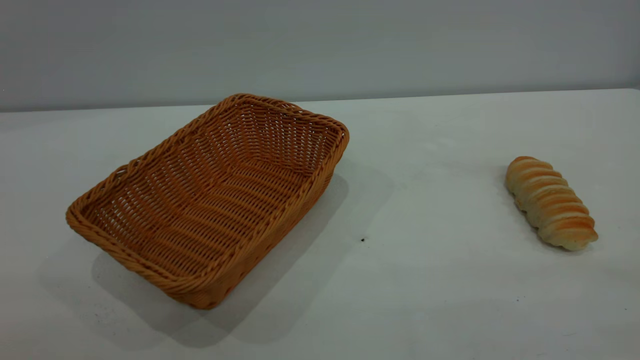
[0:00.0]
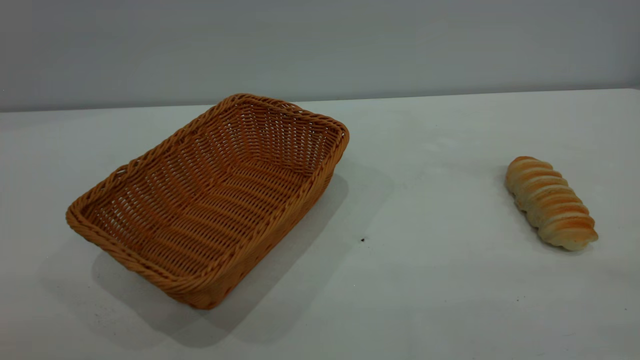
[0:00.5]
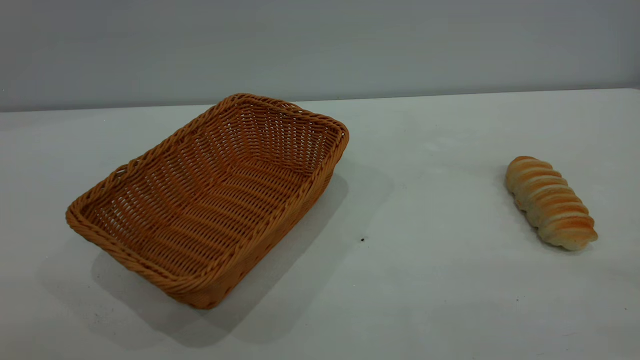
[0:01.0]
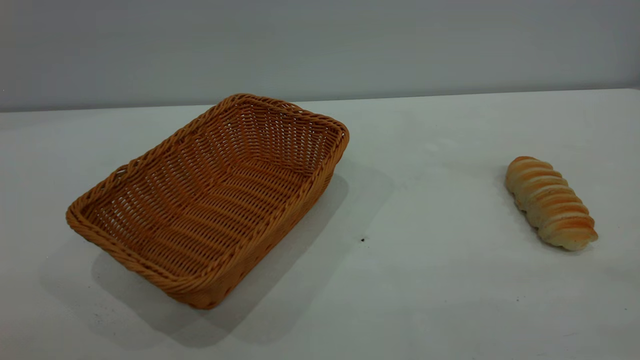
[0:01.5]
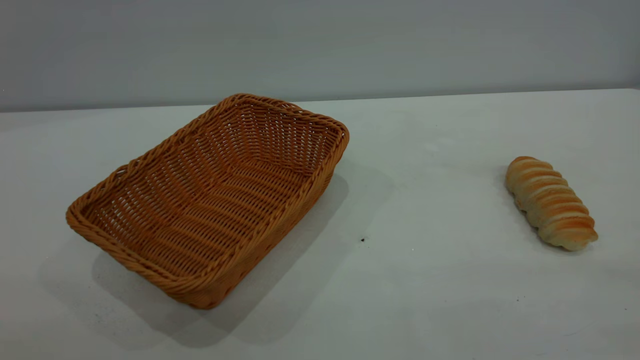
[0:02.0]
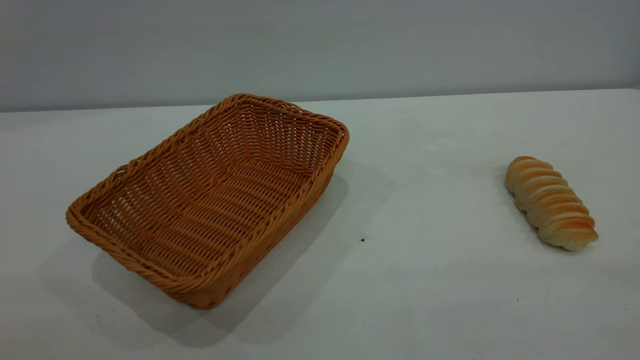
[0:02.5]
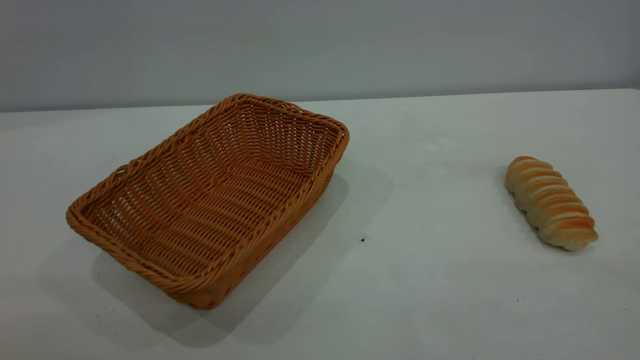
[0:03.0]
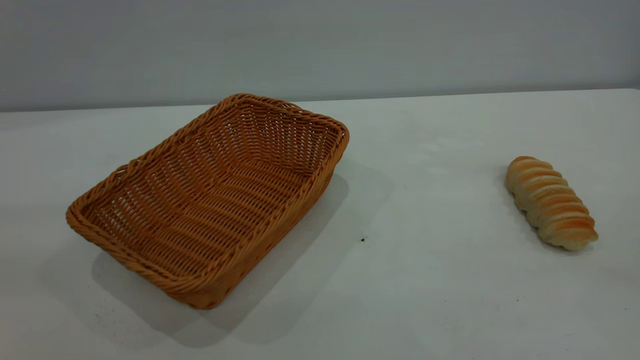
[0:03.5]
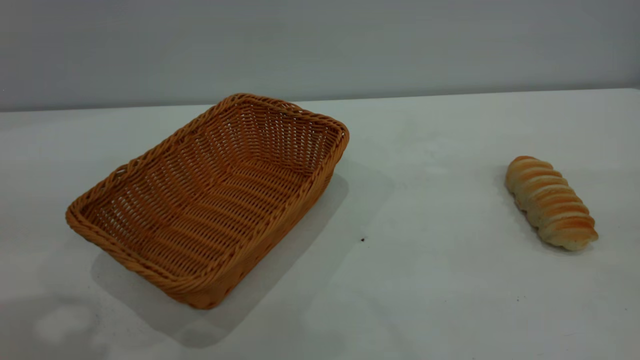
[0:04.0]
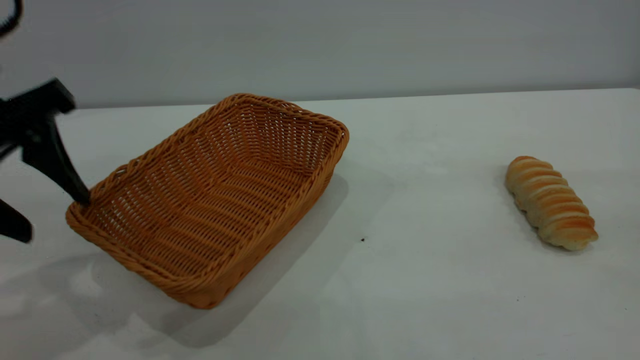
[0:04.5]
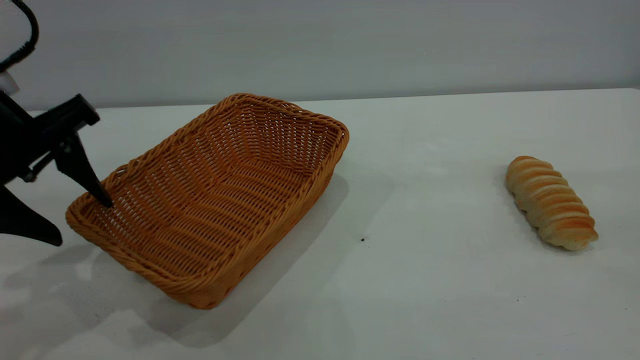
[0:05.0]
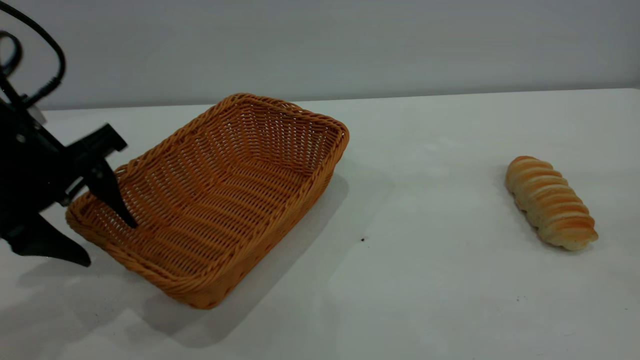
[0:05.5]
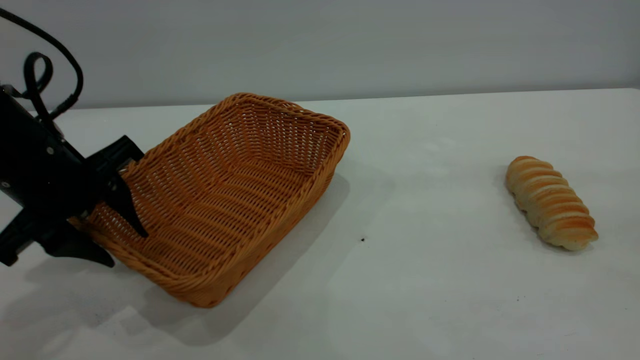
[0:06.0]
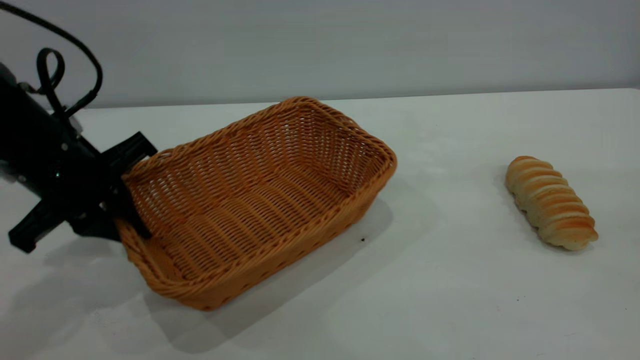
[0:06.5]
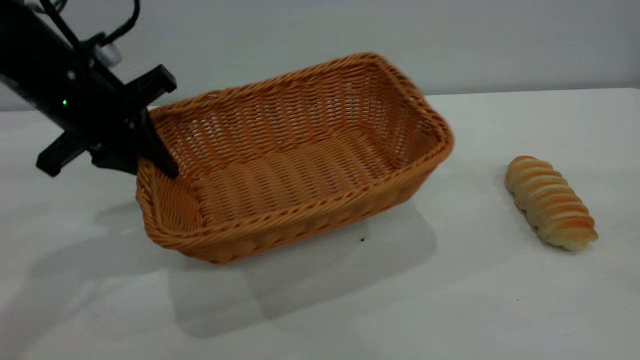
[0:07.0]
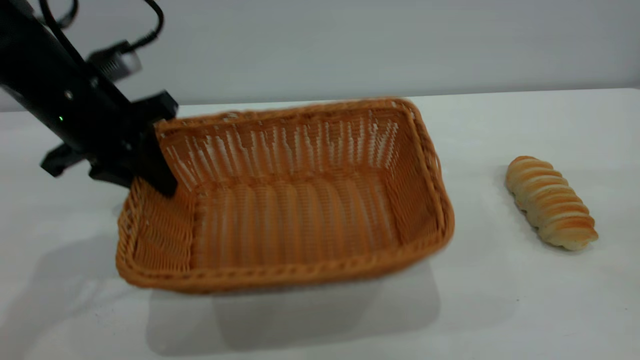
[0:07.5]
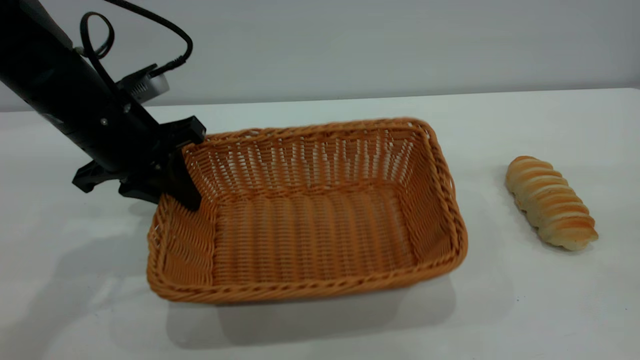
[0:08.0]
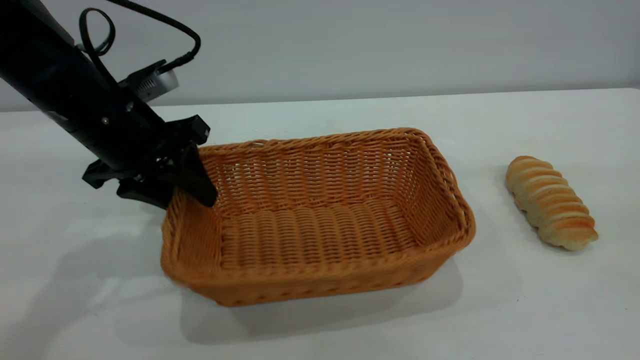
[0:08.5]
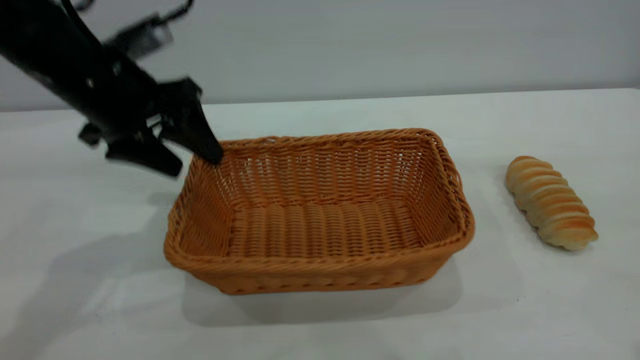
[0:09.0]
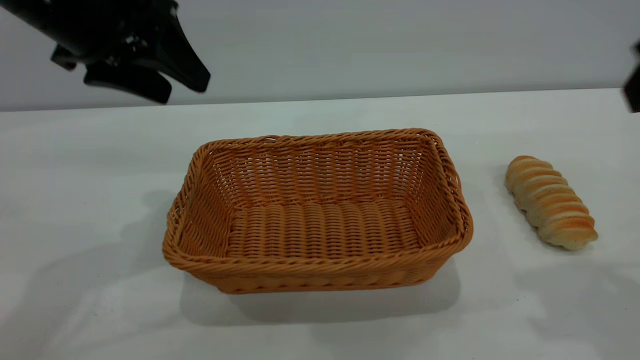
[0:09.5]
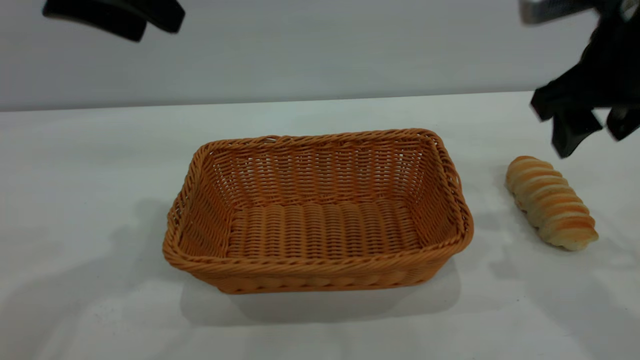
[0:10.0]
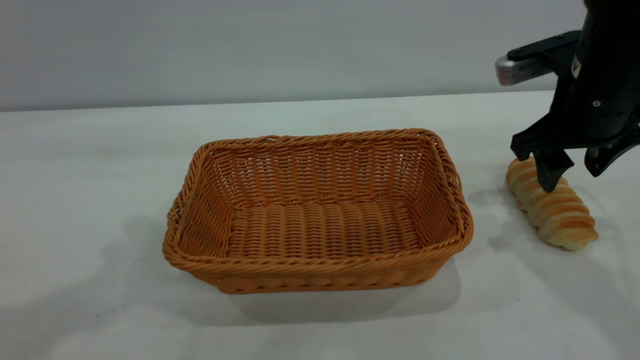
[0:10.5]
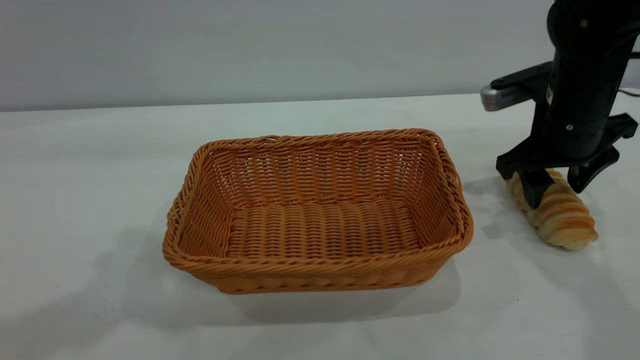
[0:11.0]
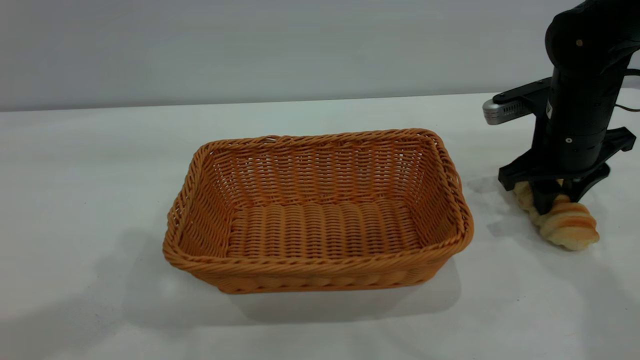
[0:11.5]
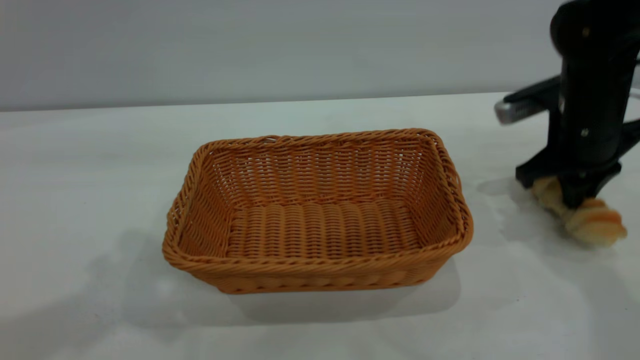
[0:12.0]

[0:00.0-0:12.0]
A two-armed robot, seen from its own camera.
Task of the whole recording: One hand grasps the yellow basket and places it in the middle of the table, while the other hand picks up the long bread and puts it into the yellow basket.
Step, 0:00.0 to 0:09.0: Move the basket to the center of view.
0:00.0 to 0:02.0: The two grippers keep their place.
0:04.0 to 0:06.0: The left gripper moves downward and forward, some 20 cm.
0:06.0 to 0:08.0: The left gripper goes some 5 cm forward, and closes up.
0:08.0 to 0:10.0: The right gripper shifts some 25 cm forward and downward. Meanwhile the left gripper moves upward, some 15 cm, and opens up.
0:10.0 to 0:12.0: The right gripper travels downward and forward by some 10 cm, and closes its fingers; the left gripper is displaced upward and backward by approximately 10 cm.

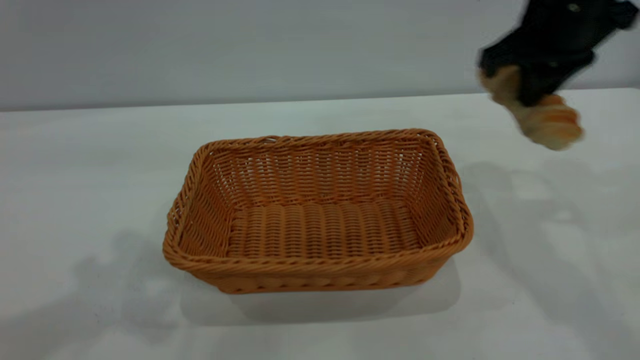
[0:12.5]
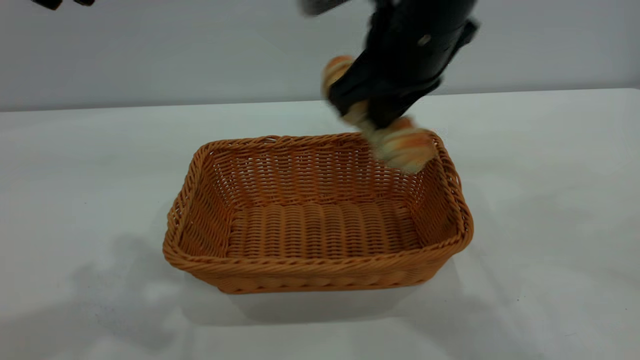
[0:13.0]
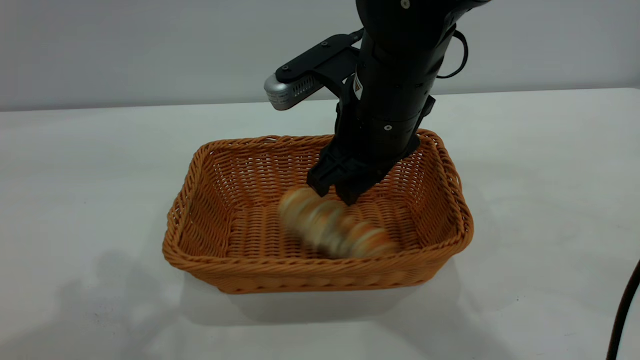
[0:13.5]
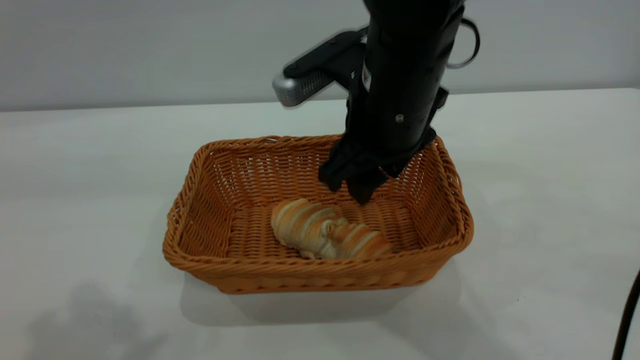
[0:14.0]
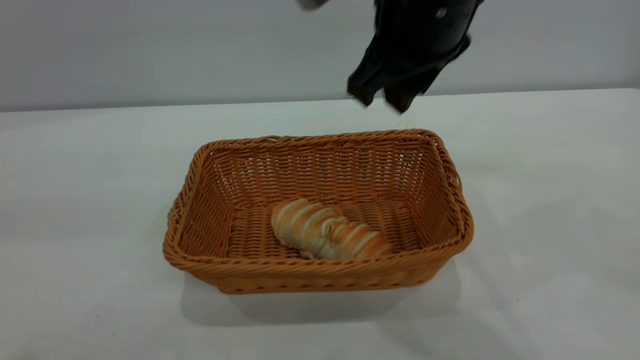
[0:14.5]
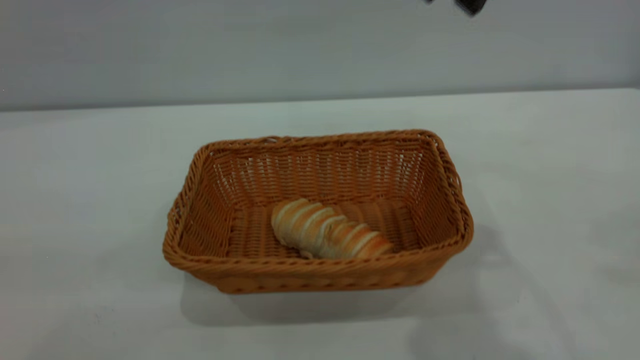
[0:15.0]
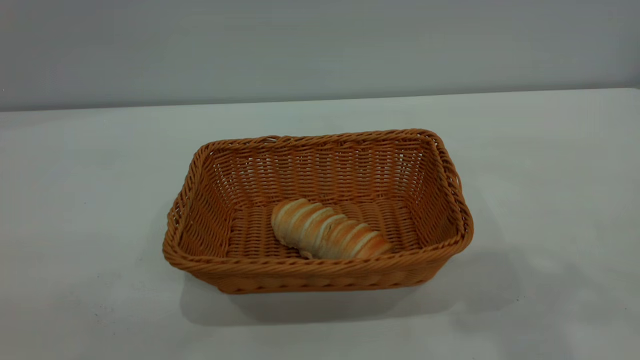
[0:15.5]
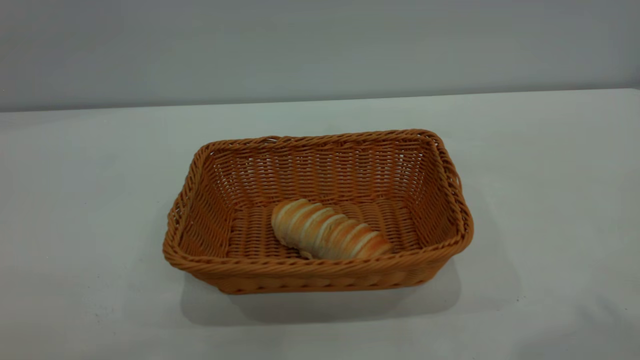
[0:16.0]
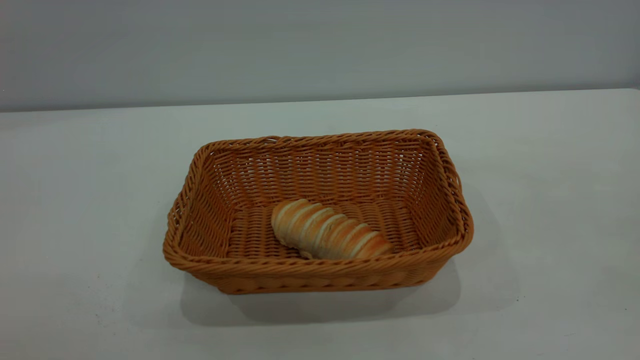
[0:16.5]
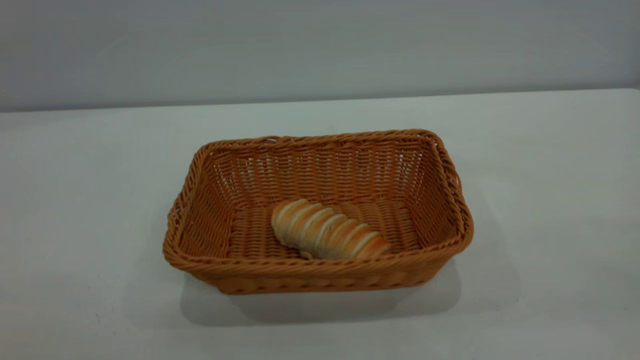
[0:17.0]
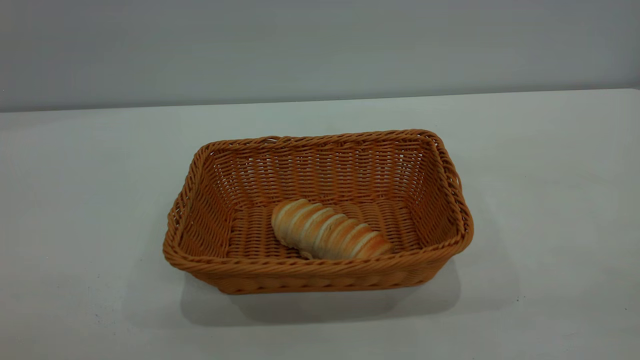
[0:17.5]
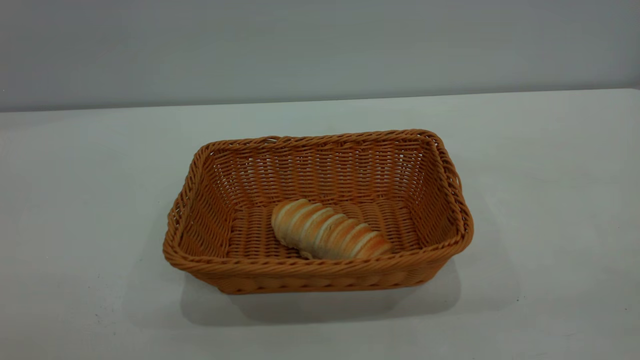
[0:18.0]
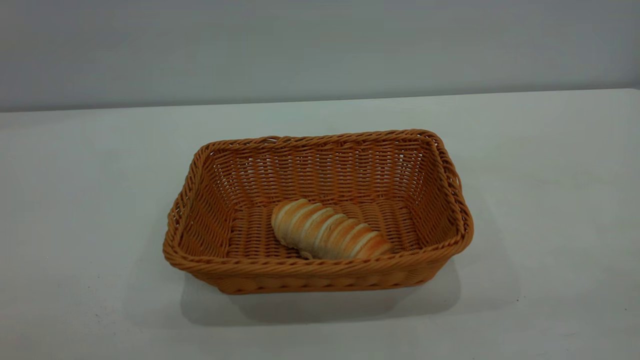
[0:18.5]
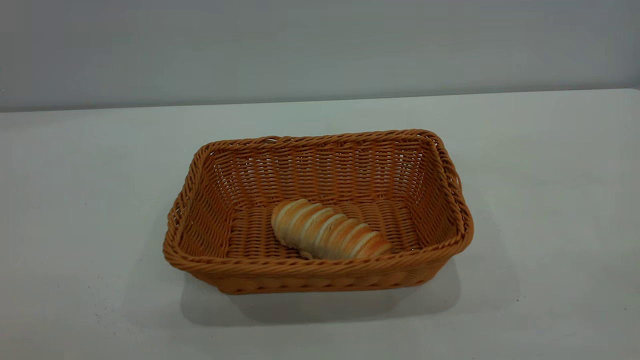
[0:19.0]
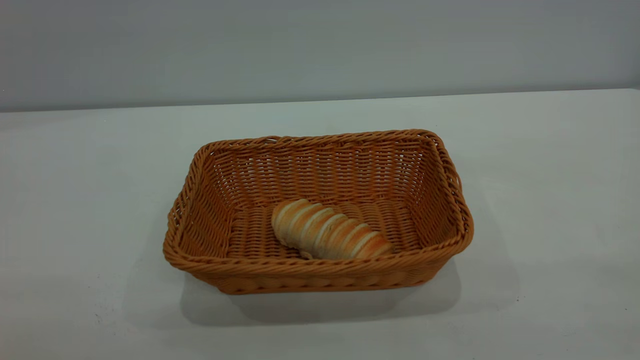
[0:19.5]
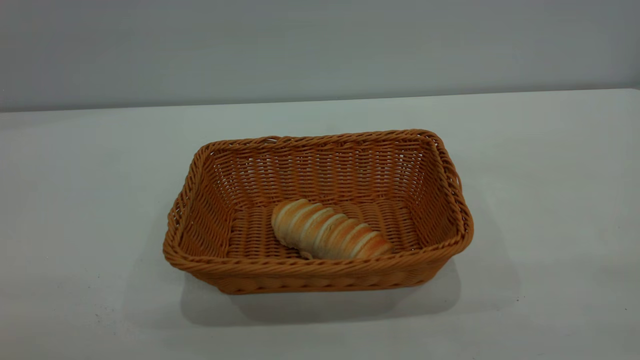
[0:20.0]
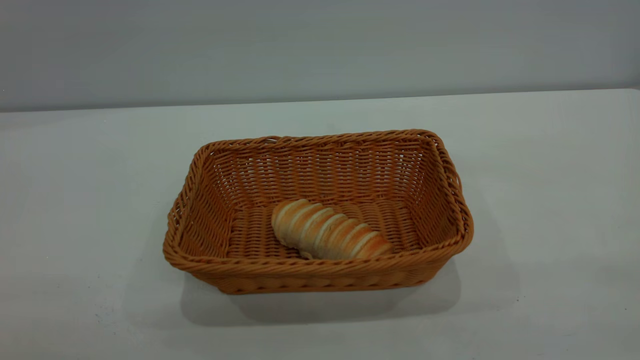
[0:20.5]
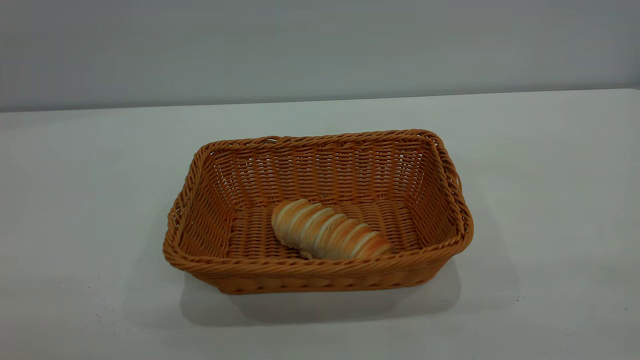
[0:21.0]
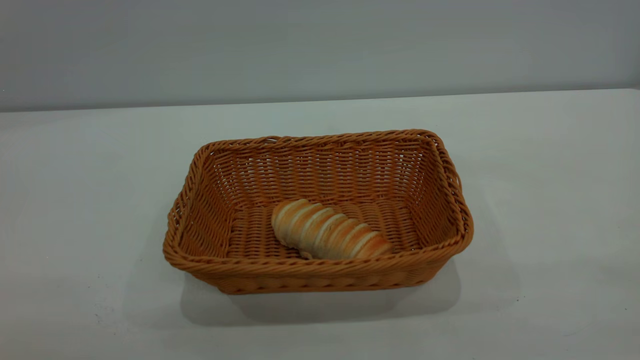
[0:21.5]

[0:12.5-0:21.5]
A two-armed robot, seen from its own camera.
Task of the whole recording: One hand grasps the yellow basket and places it in the middle of the table, while the other hand picks up the long bread and puts it into the yellow basket.
Step, 0:12.5 to 0:14.5: place the bread into the basket.
0:12.5 to 0:14.5: The right gripper is displaced to the left and backward by approximately 10 cm, and opens up; the left gripper travels backward by approximately 15 cm.
0:14.5 to 0:17.0: The left gripper goes about 15 cm backward; the right gripper moves backward and to the right, some 40 cm.
0:19.5 to 0:21.5: Both grippers stay put.
